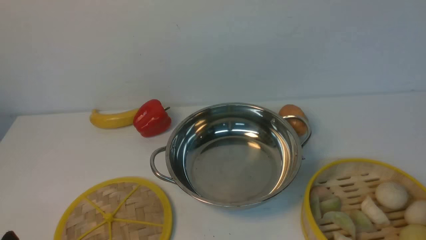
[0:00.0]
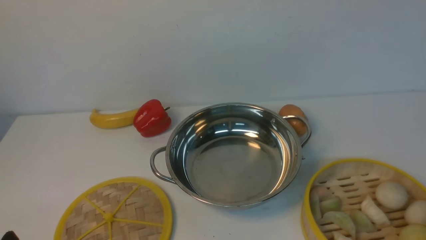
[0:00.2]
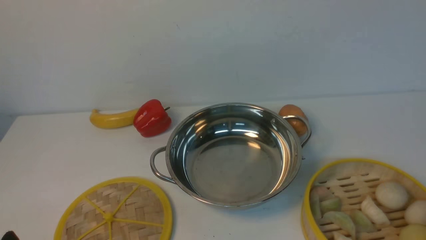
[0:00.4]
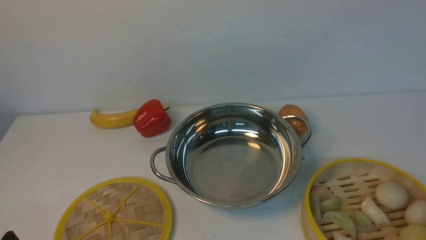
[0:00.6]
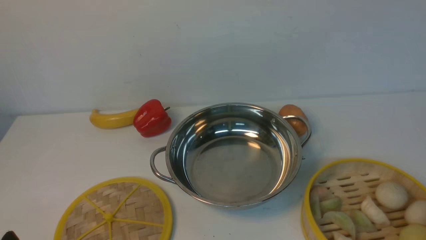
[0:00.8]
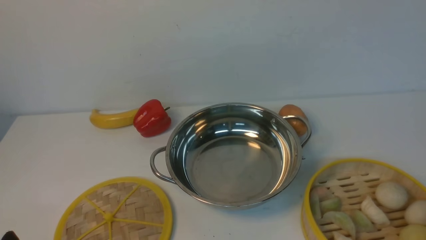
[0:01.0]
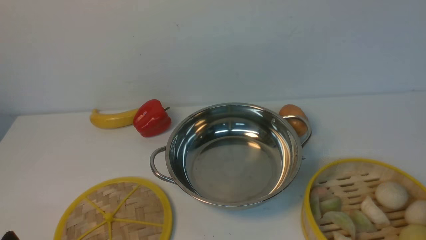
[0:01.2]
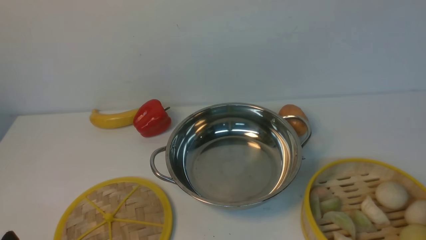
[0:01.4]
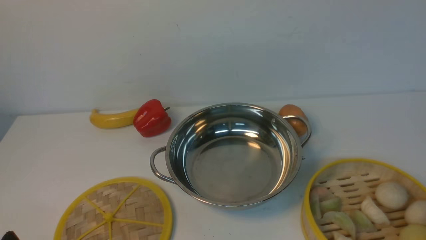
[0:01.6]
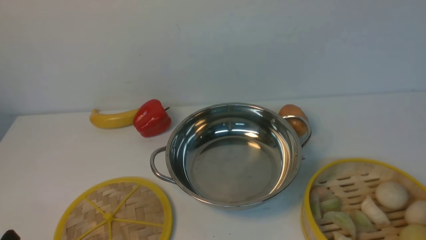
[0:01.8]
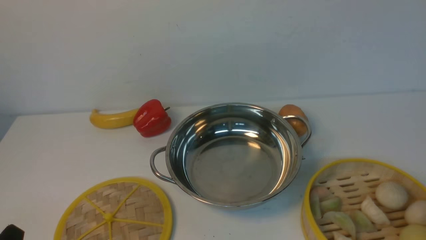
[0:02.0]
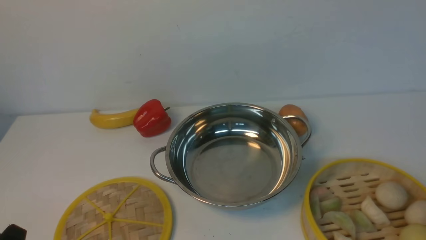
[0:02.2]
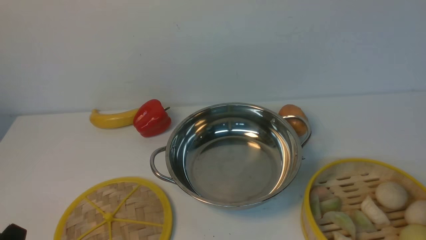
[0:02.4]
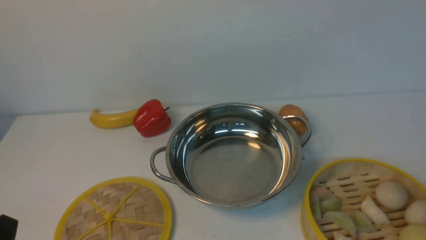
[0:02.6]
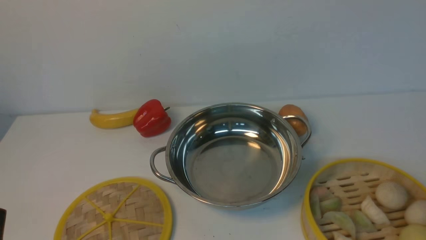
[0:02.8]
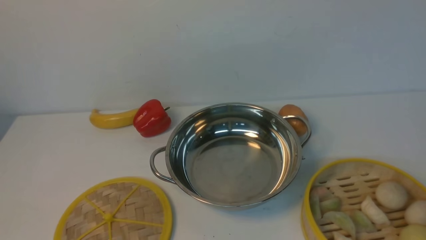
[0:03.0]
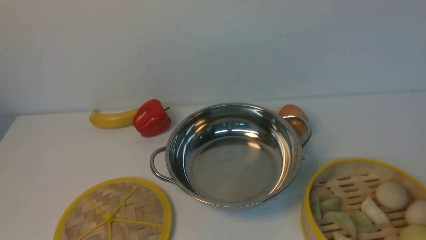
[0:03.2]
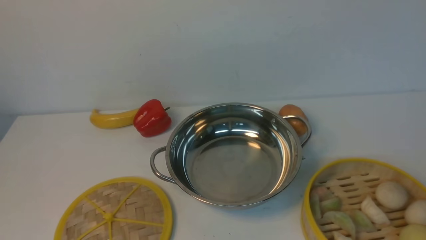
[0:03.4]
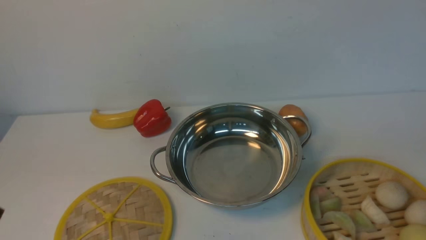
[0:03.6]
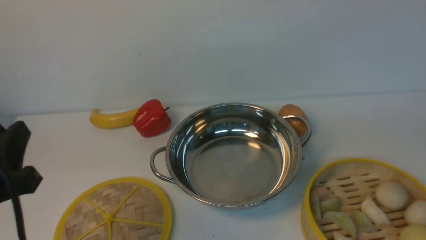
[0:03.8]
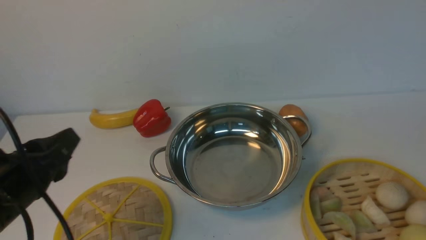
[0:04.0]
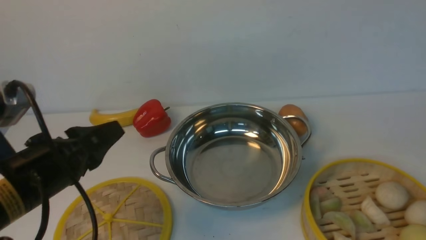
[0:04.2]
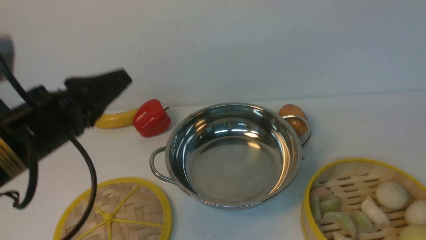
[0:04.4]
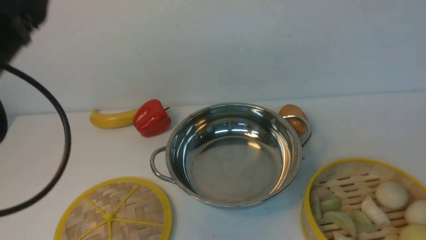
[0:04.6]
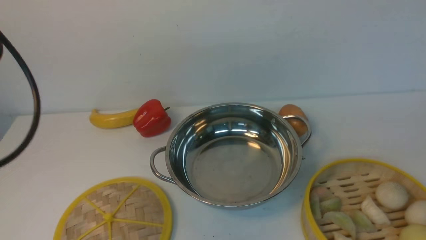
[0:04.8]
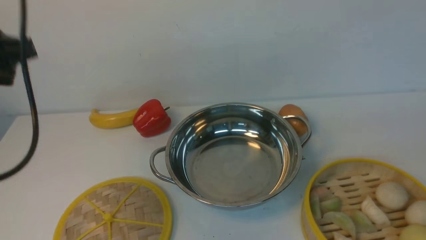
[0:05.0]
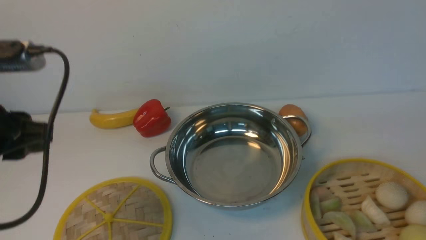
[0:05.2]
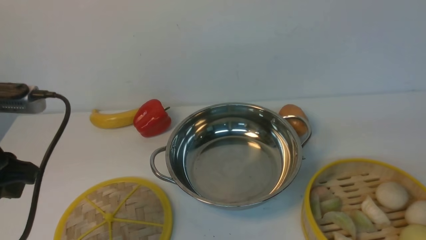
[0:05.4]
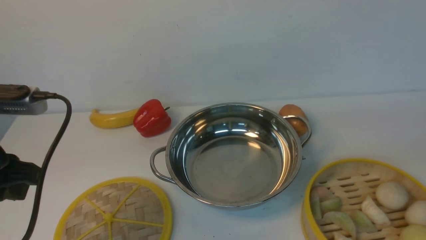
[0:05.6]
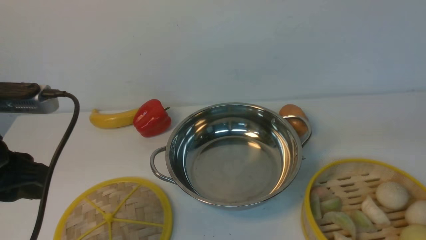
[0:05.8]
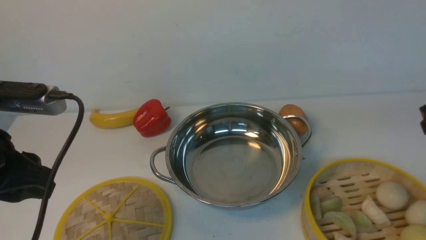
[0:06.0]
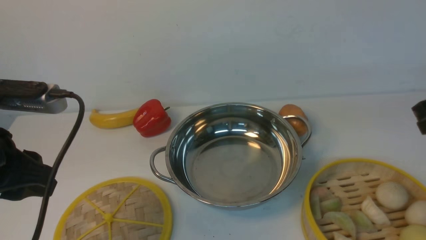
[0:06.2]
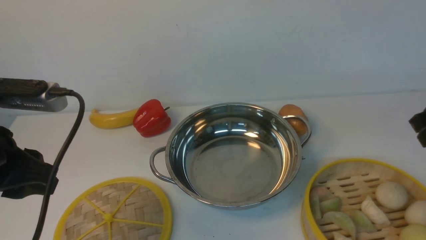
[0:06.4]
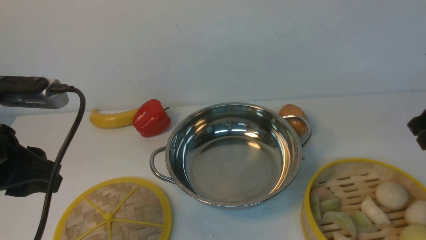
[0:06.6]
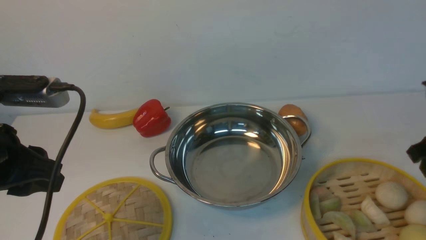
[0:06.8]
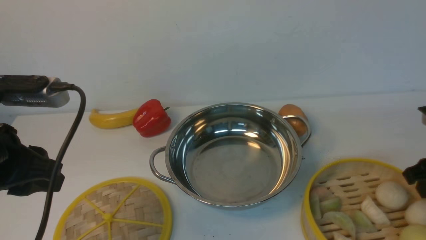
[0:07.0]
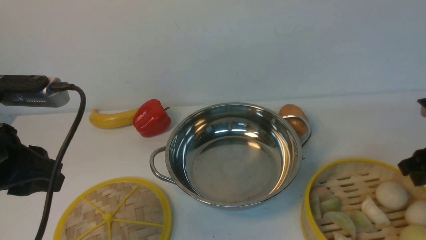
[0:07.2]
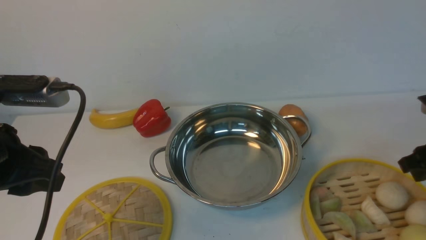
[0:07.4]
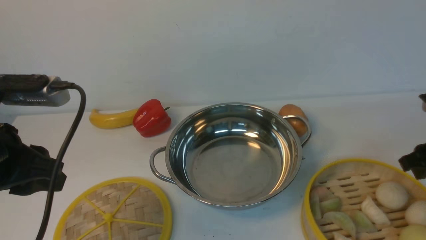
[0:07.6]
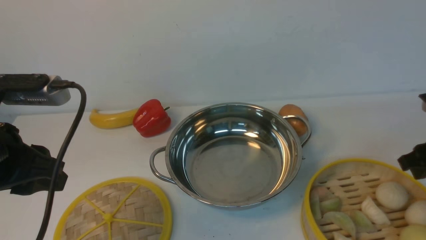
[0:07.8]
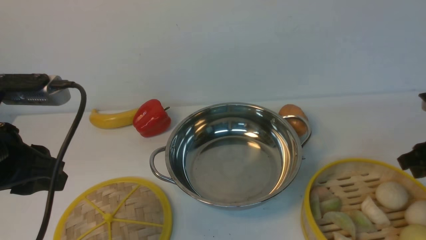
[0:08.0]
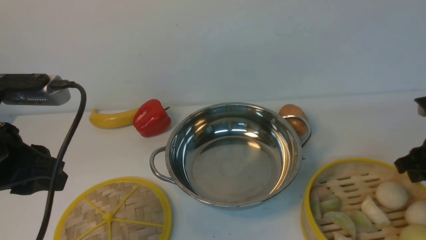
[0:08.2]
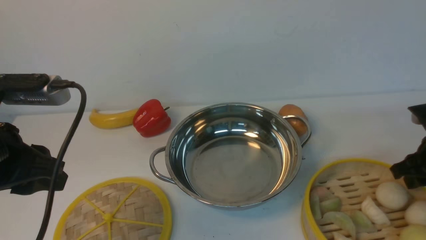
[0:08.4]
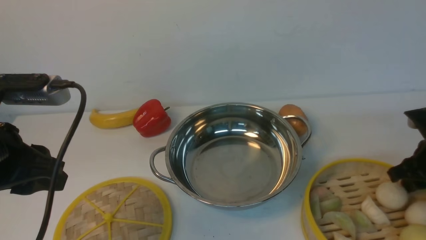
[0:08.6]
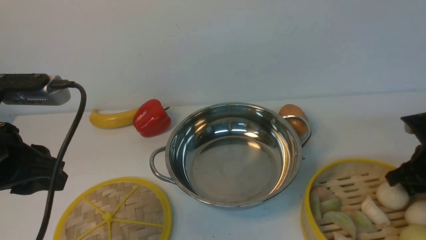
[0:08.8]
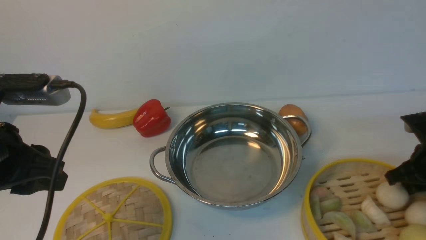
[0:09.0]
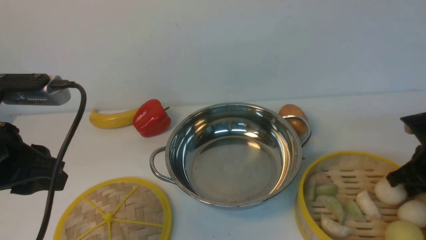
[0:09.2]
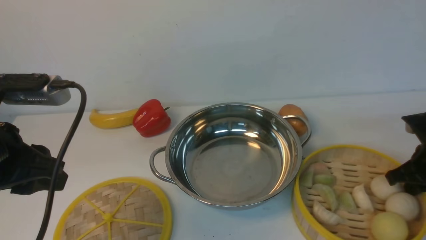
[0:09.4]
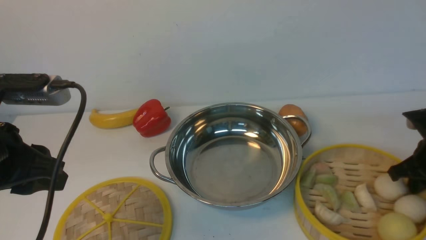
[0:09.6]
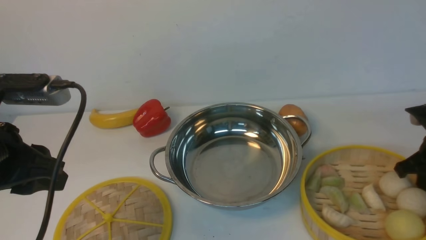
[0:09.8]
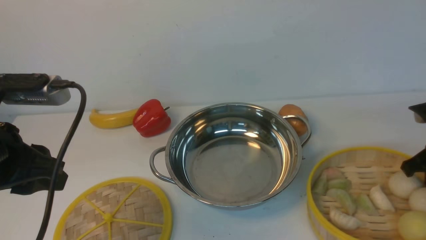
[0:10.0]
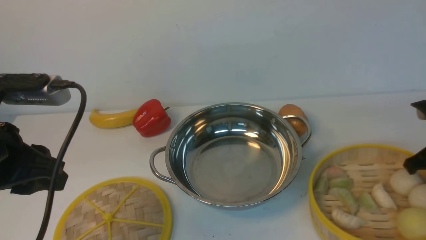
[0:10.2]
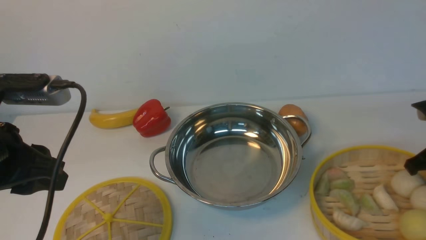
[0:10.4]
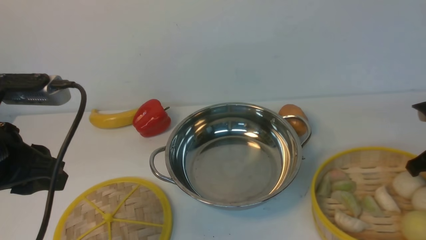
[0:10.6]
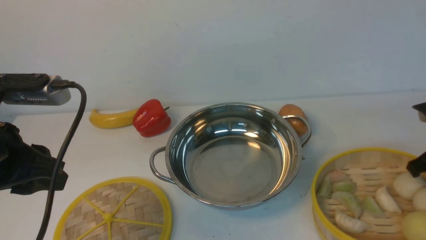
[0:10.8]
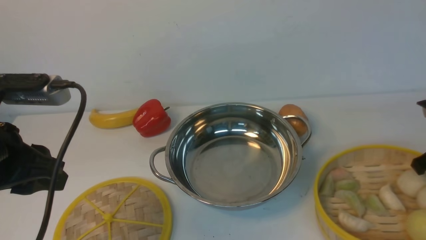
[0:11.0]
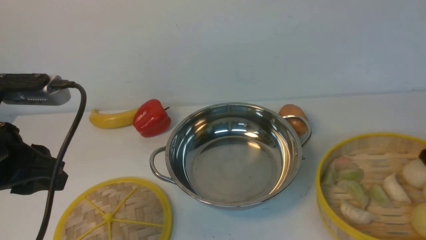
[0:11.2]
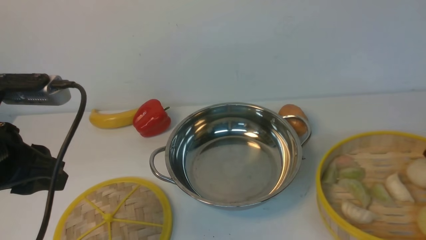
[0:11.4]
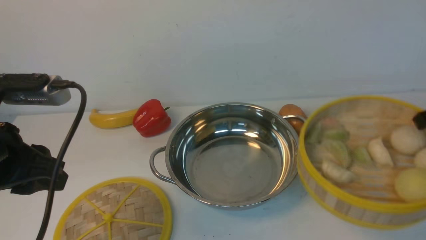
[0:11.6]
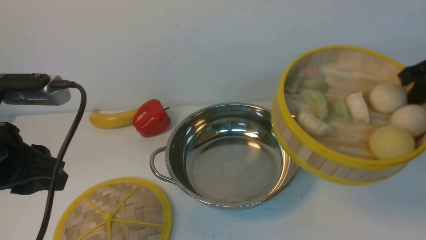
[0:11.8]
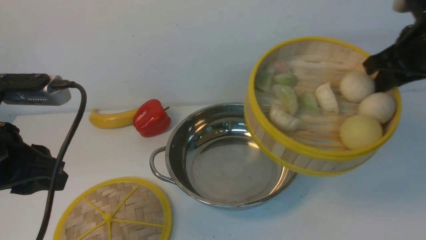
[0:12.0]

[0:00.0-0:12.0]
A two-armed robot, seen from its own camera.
Task of the whole recording: place the steamer in the pot on the white table, and put the lid on the steamer.
Step, 0:00.0 to 0:12.0: use the right arm to lift the steamer closest to it.
0:03.0 to 0:04.4: The left gripper goes some 20 cm forward and upward.
0:04.4 to 0:06.0: The left gripper goes upward and returns, some 10 cm each way.
0:06.0 to 0:07.6: The right gripper moves downward, approximately 10 cm.
0:07.6 to 0:09.0: The right gripper shifts approximately 5 cm downward.
0:09.0 to 0:10.4: The right gripper closes its fingers.
0:10.4 to 0:12.0: The right gripper shifts approximately 15 cm upward and to the left.

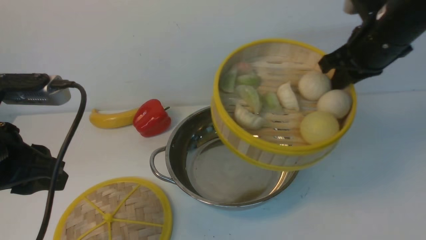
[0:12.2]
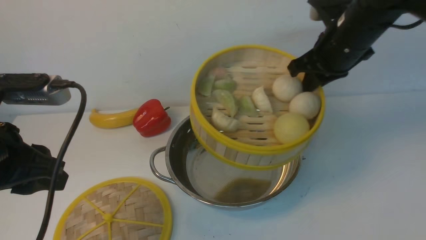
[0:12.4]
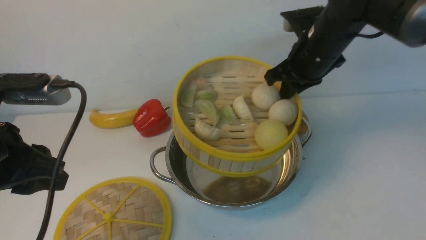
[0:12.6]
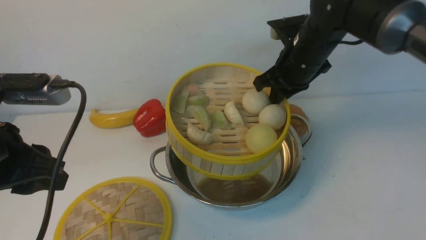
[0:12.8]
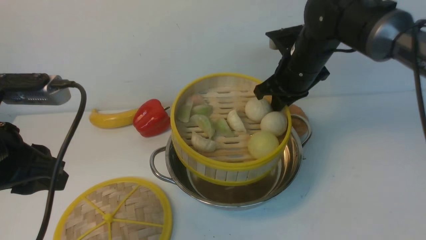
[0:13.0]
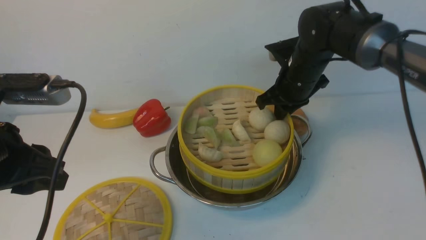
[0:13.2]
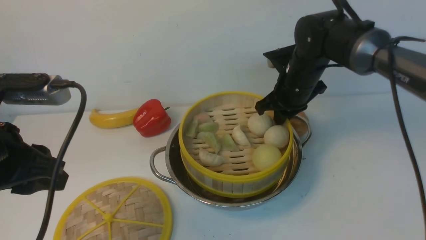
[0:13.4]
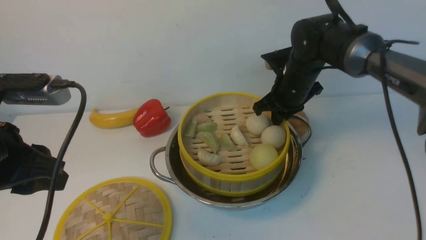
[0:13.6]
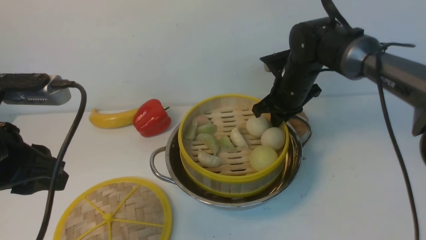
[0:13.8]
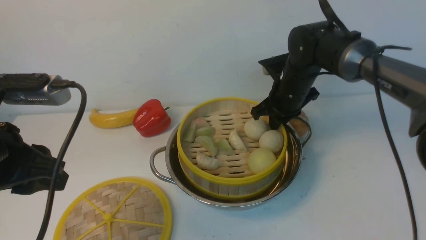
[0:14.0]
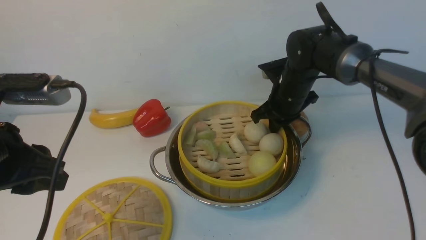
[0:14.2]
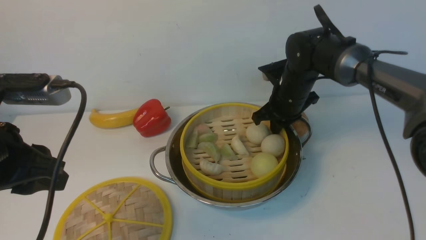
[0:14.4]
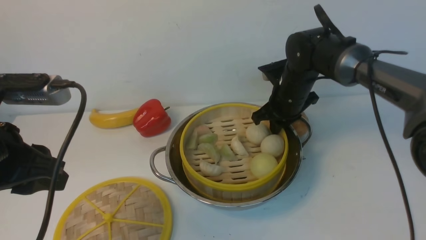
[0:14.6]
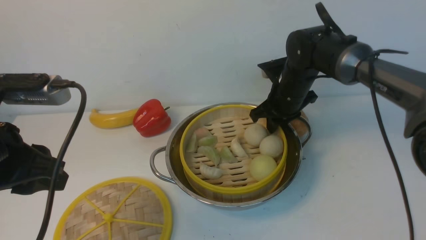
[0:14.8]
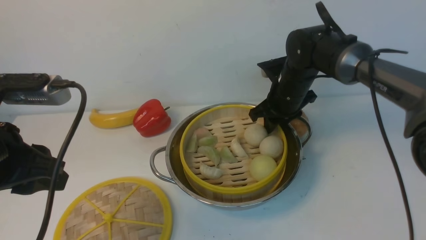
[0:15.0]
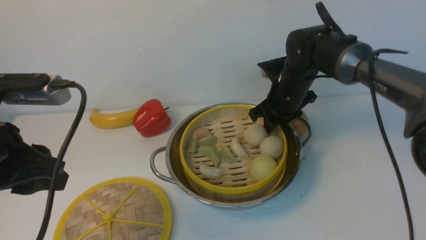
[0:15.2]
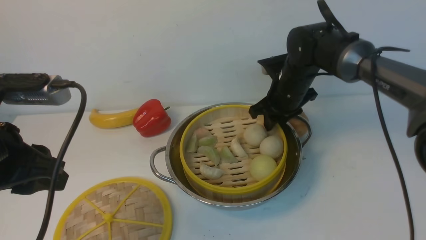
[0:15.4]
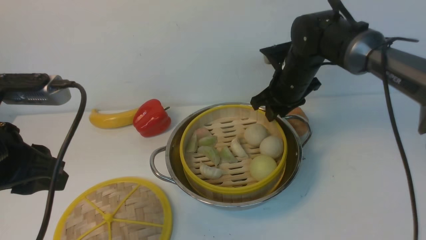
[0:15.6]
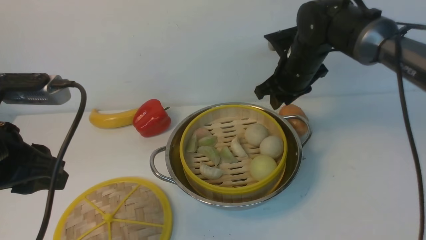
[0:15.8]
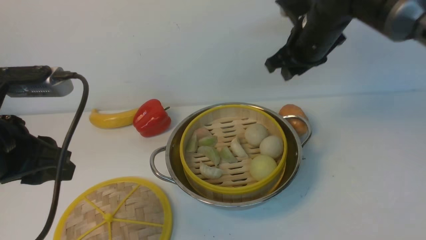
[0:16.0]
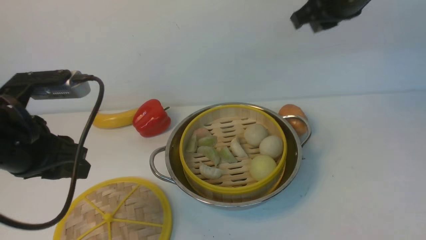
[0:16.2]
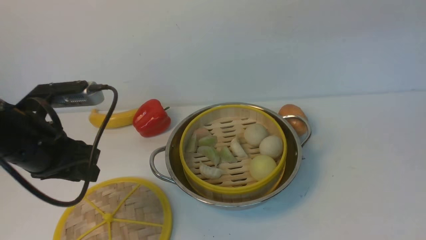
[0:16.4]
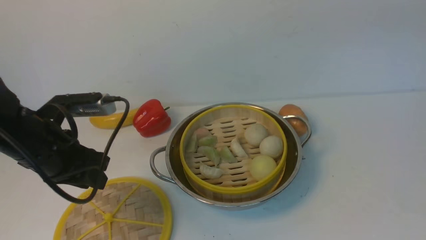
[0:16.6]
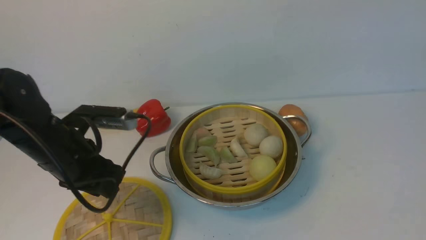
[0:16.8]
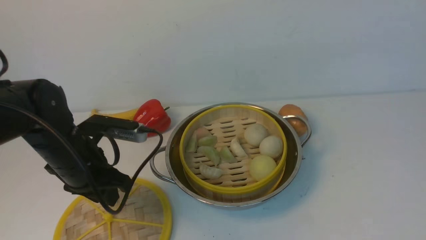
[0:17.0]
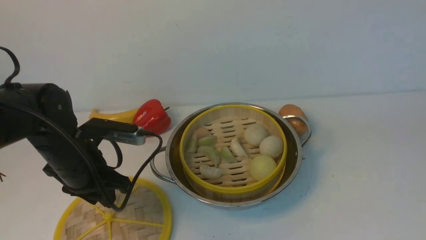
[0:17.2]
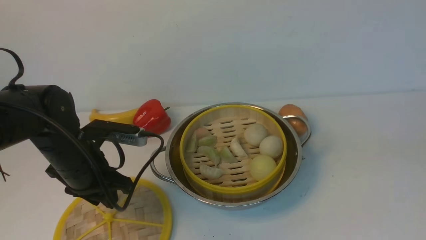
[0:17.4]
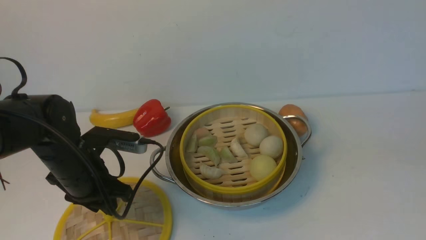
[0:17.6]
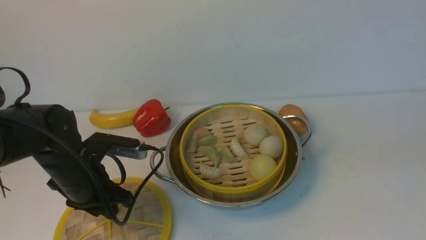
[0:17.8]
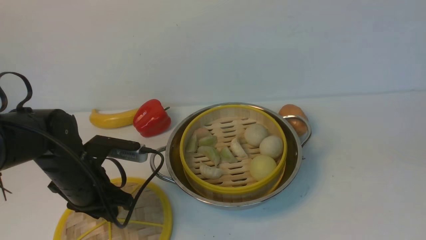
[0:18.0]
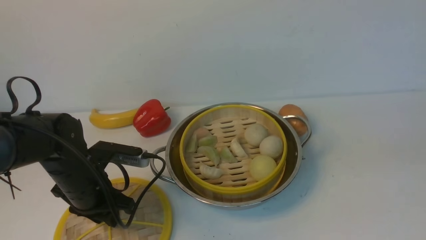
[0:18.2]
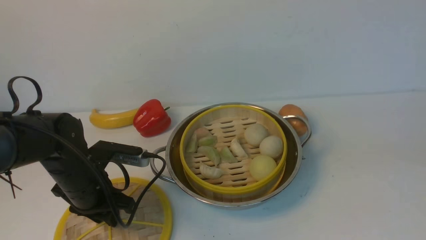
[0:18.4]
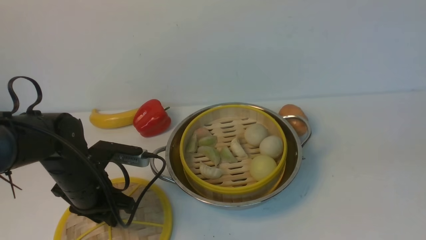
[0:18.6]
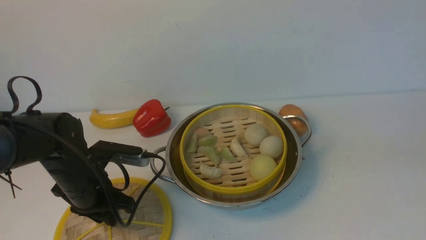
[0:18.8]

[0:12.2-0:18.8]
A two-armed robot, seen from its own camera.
Task of the whole recording: place the steamer in the pot on the white table, and put the lid on the steamer.
Step, 0:12.2 to 0:15.8: use the right arm to put the steamer into the iron steamer pot in the middle.
0:12.2 to 0:13.8: The right gripper shifts roughly 15 cm downward, to the left and forward.
0:13.8 to 0:15.4: The right gripper opens.
0:15.4 to 0:17.2: The left gripper is displaced downward and forward by approximately 15 cm. The right gripper heads backward, upward and to the right, covering about 40 cm, and closes its fingers.
0:17.2 to 0:18.8: The grippers stay close to where they were, moving slightly.
